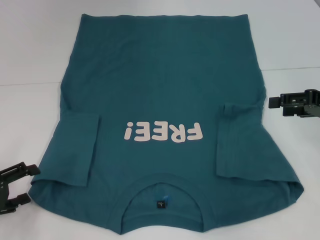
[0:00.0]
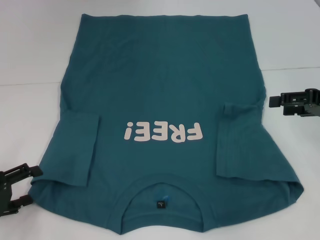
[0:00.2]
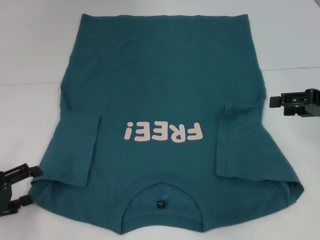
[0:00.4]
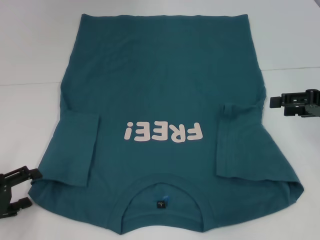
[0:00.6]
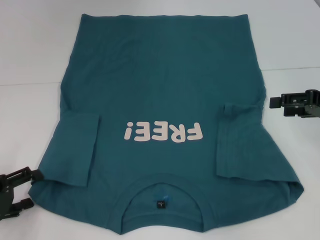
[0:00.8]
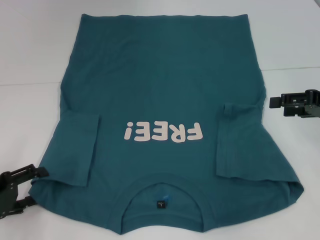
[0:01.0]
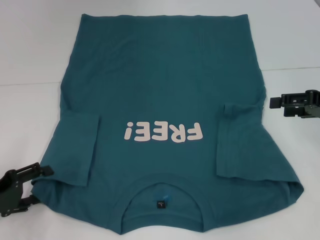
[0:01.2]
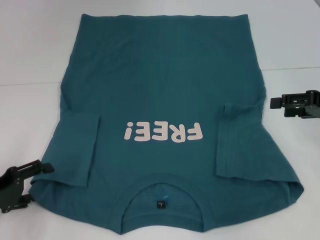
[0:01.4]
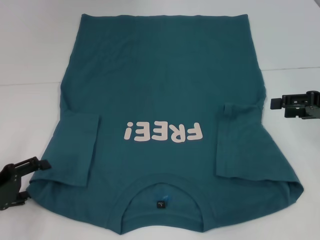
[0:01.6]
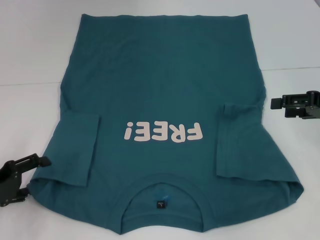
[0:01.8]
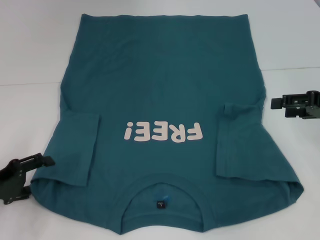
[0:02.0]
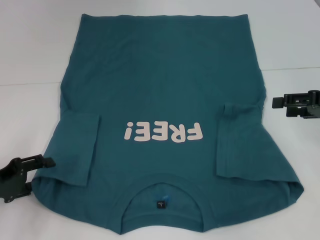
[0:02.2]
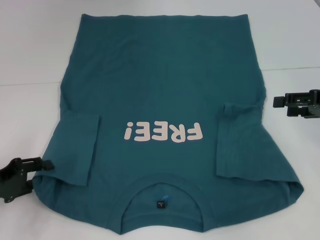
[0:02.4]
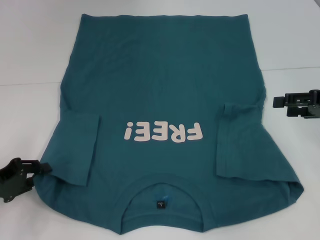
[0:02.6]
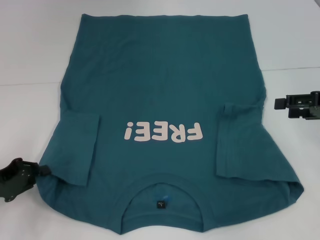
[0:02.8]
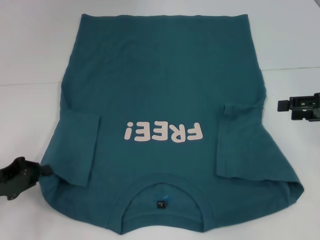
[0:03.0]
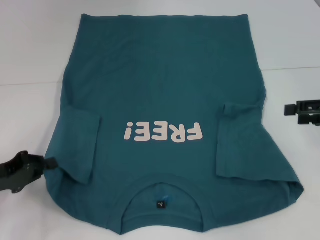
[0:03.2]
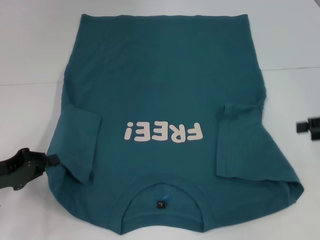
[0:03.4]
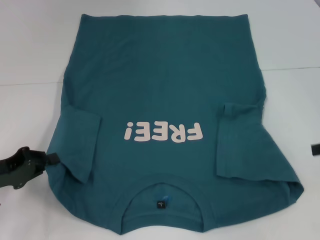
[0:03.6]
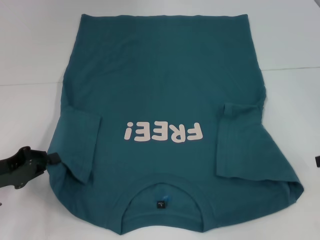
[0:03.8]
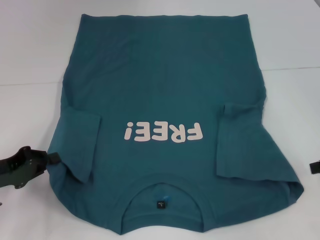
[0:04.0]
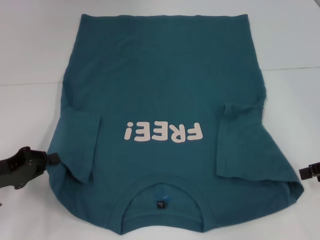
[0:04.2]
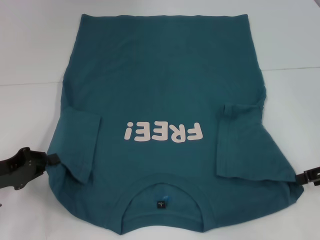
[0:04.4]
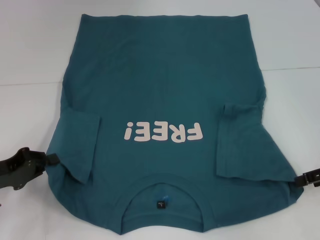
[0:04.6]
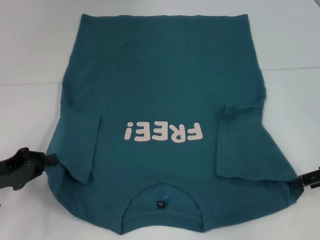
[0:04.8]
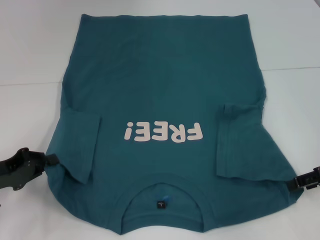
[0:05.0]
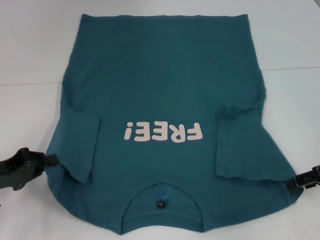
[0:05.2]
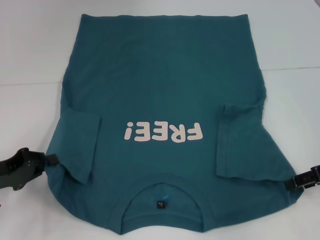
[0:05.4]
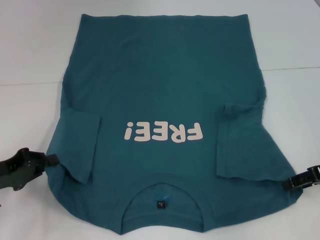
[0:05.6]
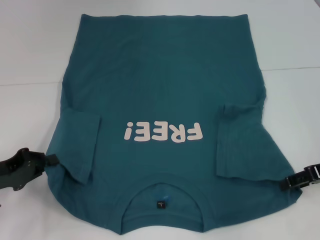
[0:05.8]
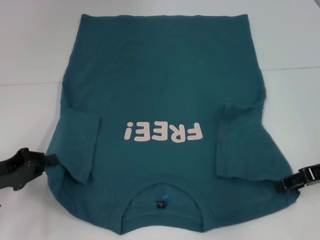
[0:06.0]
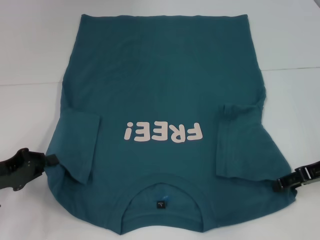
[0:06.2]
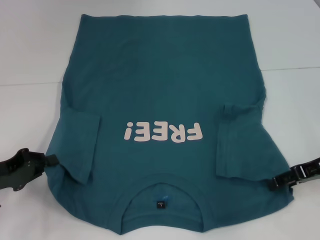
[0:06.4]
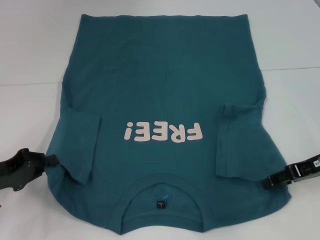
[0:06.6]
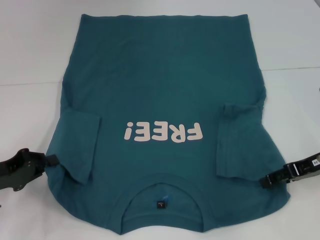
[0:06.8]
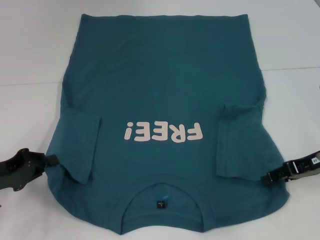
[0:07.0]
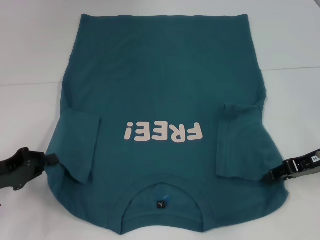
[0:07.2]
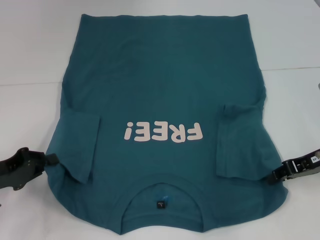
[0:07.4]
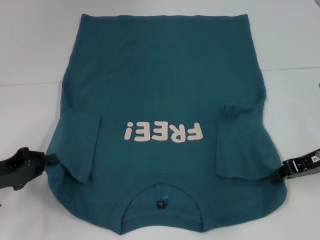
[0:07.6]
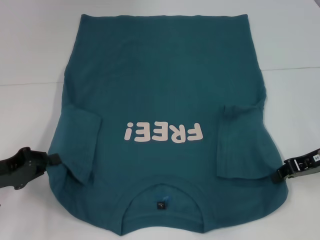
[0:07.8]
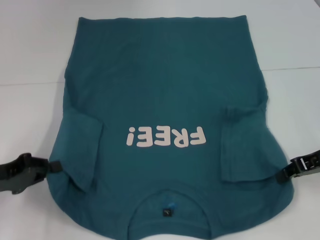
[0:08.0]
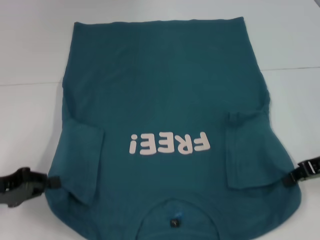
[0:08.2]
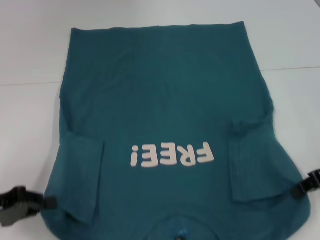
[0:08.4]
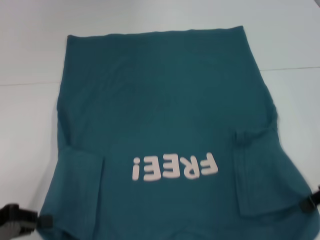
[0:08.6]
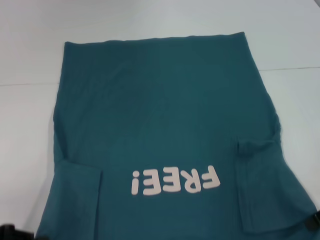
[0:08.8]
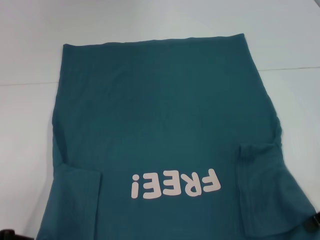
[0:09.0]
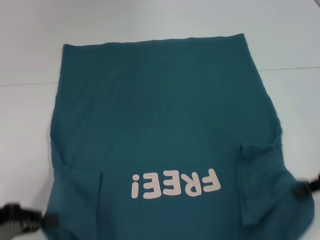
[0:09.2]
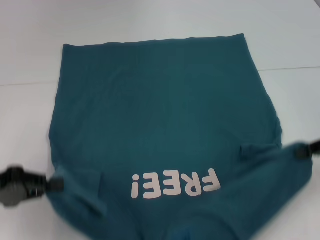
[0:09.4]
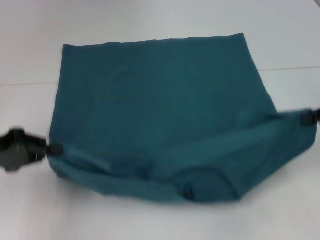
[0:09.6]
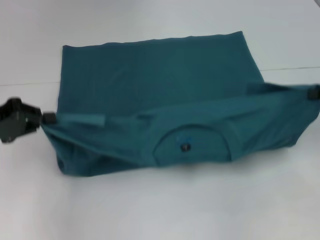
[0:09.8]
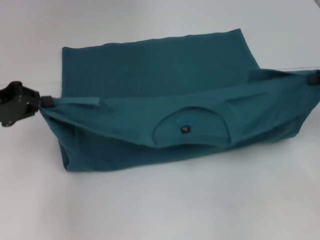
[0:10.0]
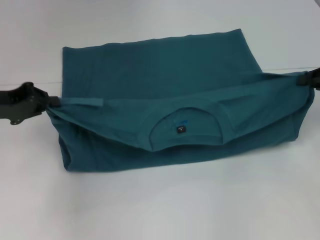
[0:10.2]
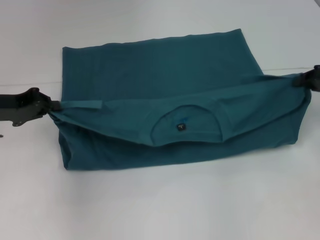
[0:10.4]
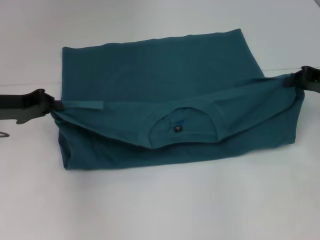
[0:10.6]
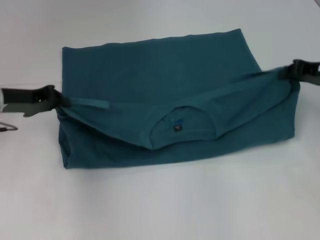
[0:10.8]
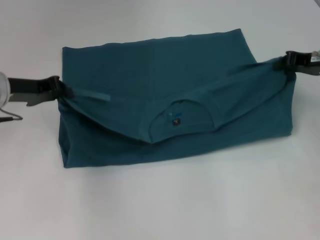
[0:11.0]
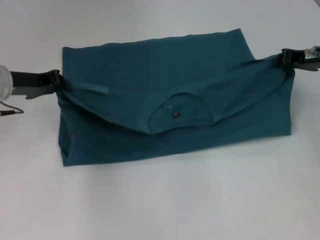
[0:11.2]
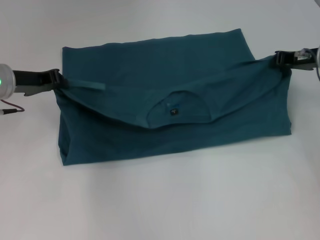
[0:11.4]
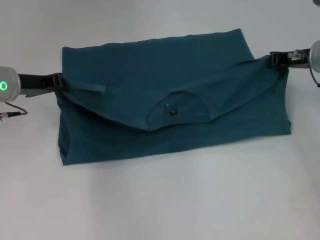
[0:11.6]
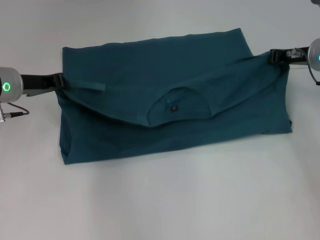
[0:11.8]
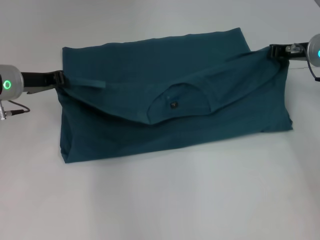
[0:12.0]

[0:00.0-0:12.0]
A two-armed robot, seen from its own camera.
Step, 0:00.0 to 0:02.8: Grab the bottom left corner with your left hand.
Step, 0:03.0 to 0:07.8: Grab the bottom right corner with your right hand.
0:00.0 to 0:01.6: The grippers make only small movements.
0:01.6 to 0:03.0: The left gripper closes.
0:04.4 to 0:06.0: There are only small adjustments of the grippers.
0:06.0 to 0:07.6: The right gripper closes its fingers.
0:07.6 to 0:09.0: The two grippers go about 5 cm backward.
0:09.0 to 0:10.4: The left gripper moves forward, about 15 cm. Meanwhile the right gripper moves forward, some 10 cm.
0:10.4 to 0:12.0: The left gripper is displaced to the right and forward by approximately 5 cm. The right gripper shifts about 10 cm forward and to the left.

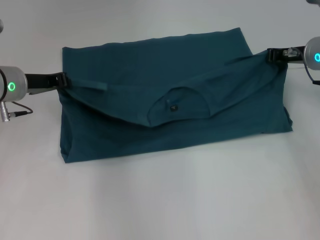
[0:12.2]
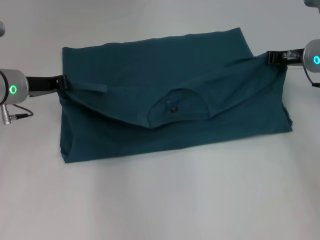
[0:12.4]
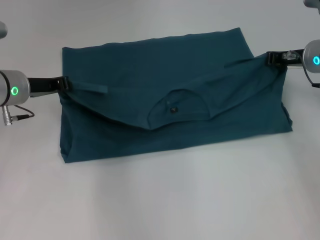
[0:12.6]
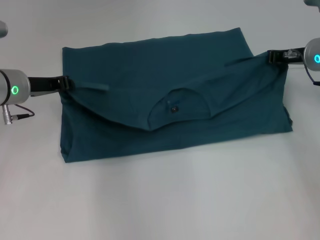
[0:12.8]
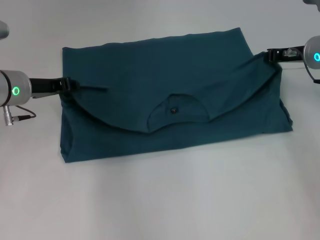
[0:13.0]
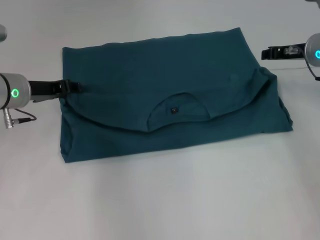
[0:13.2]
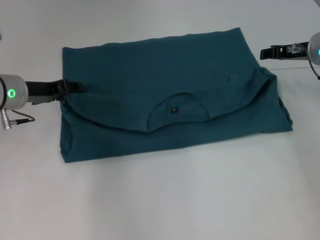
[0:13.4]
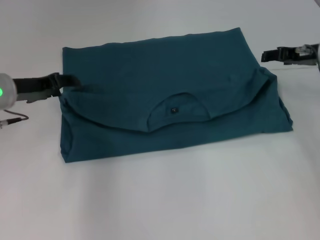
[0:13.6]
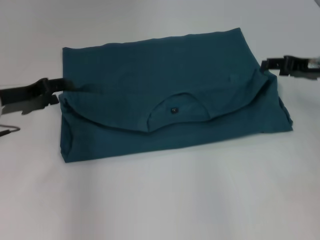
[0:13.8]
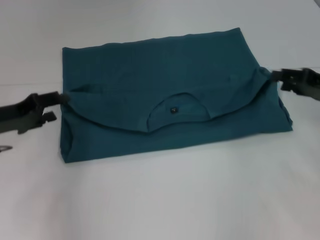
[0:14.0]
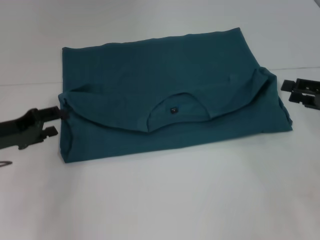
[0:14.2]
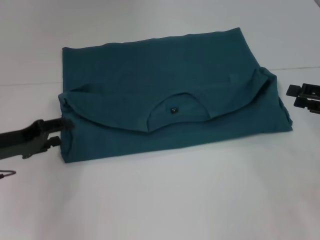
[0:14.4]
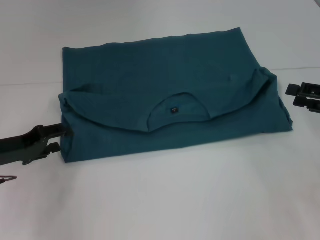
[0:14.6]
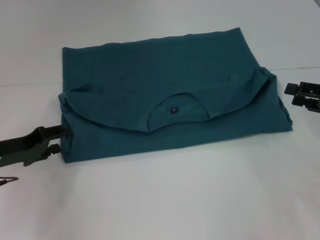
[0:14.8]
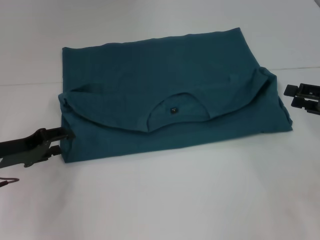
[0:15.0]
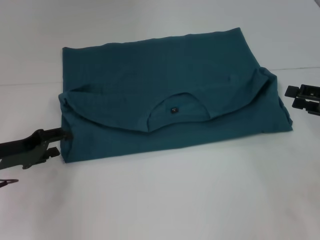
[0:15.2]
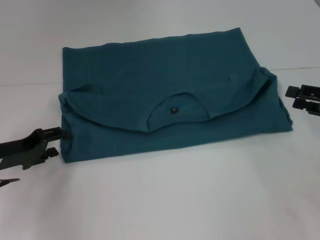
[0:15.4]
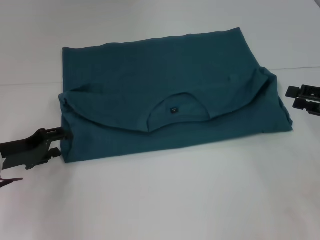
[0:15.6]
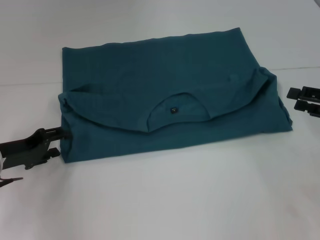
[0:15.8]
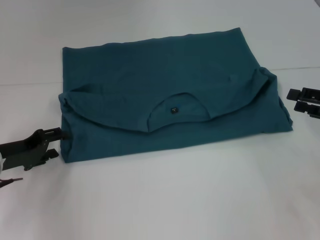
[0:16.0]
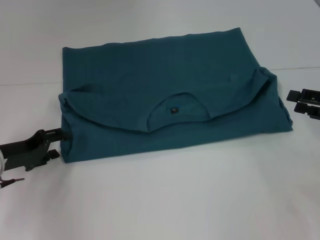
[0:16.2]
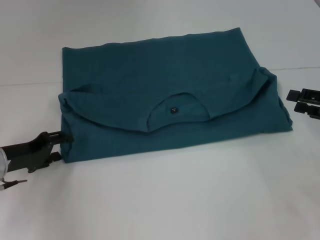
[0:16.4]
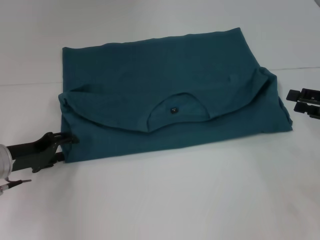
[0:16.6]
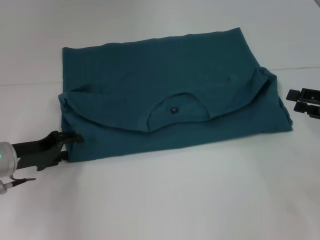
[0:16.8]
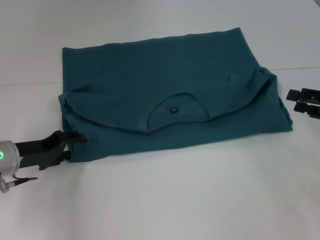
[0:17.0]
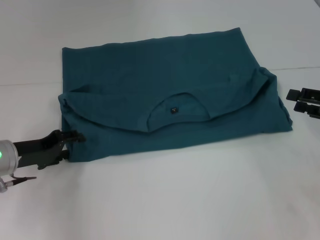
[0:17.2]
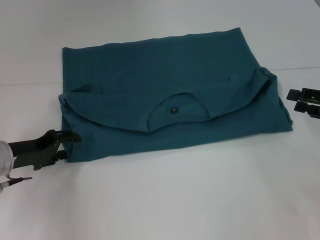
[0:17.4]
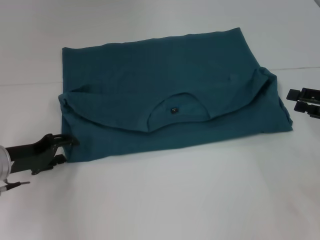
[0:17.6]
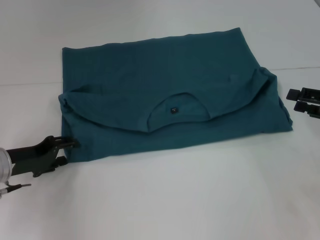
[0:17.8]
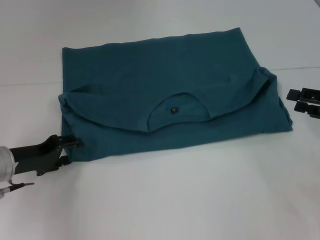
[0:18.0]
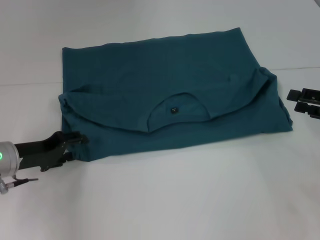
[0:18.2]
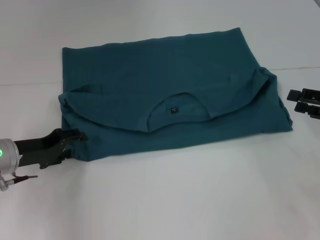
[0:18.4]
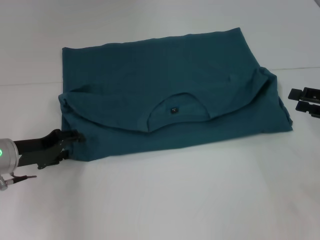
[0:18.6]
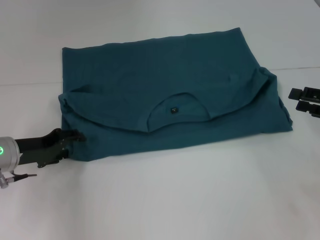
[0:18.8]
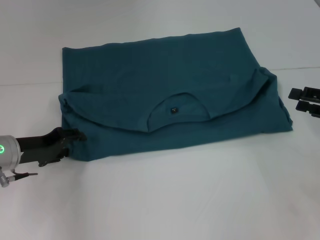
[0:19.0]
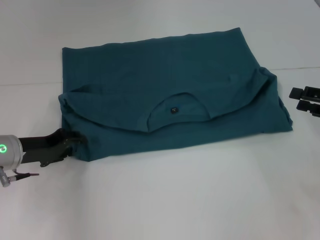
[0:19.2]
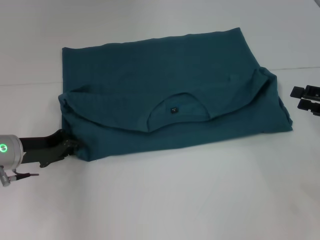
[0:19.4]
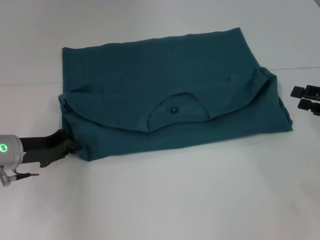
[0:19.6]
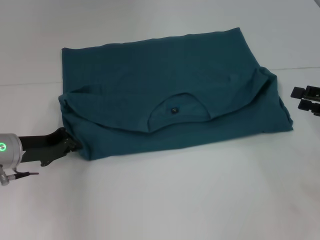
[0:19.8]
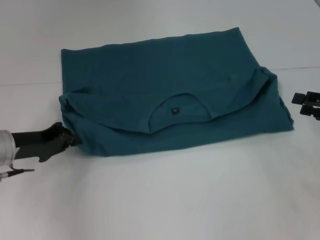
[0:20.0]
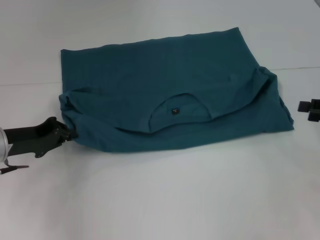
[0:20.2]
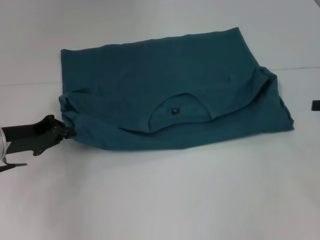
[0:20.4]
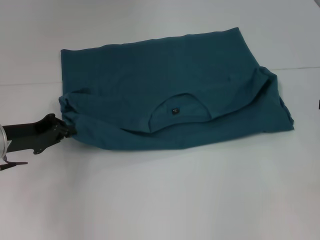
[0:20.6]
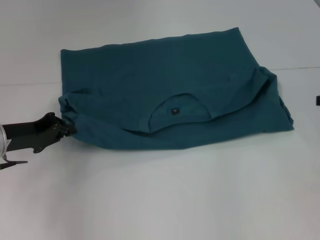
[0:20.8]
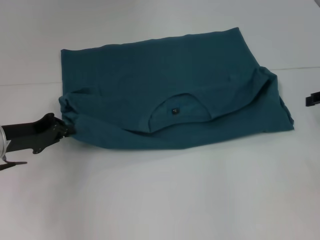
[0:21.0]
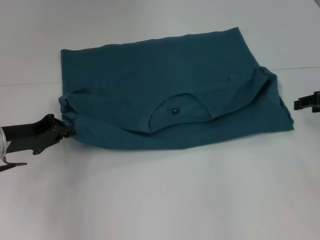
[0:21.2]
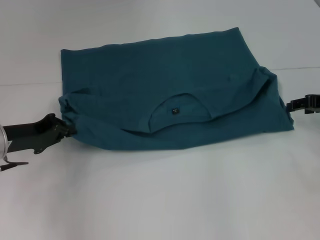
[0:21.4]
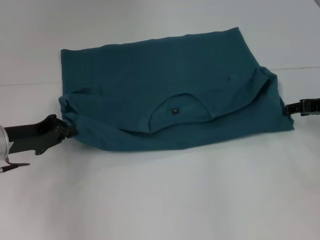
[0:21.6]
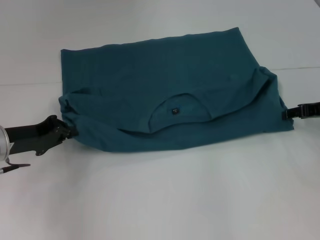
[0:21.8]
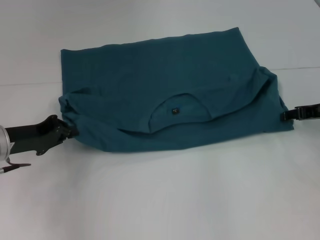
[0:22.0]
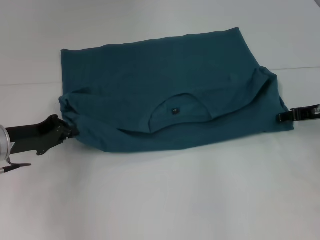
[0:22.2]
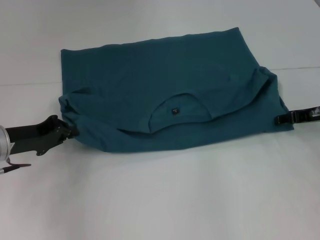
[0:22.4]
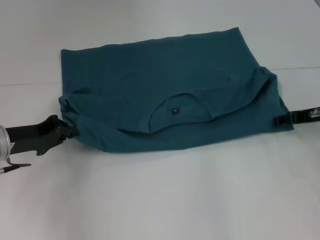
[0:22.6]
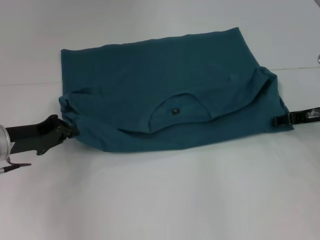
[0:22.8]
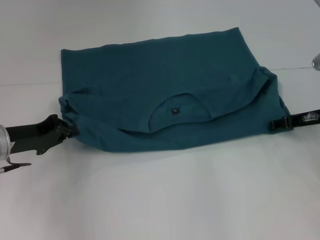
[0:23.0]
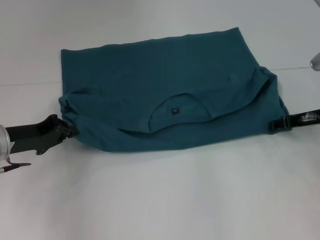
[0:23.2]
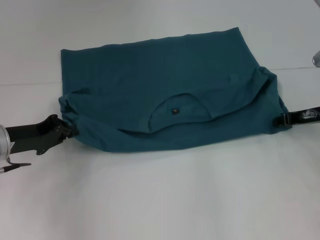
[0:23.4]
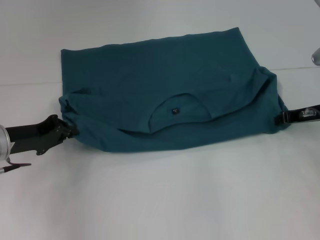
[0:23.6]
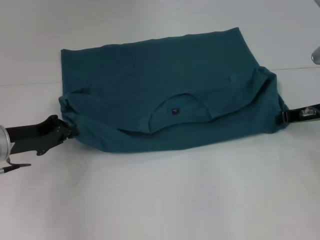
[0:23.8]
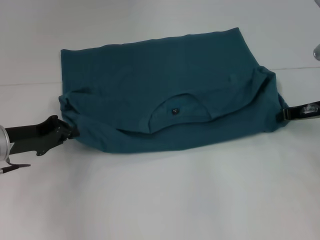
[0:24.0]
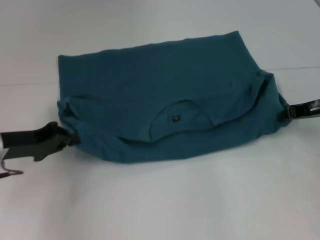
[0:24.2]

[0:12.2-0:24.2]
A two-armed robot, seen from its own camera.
0:12.2 to 0:13.8: The right gripper changes place by roughly 5 cm, and opens its fingers. Meanwhile the left gripper heads backward, covering about 5 cm, and opens up.
0:13.8 to 0:15.2: The left gripper moves downward, about 5 cm, while the right gripper travels backward and to the right by roughly 10 cm.
0:15.2 to 0:16.6: There are only small adjustments of the grippers.
0:16.6 to 0:18.2: Both grippers stay put.
0:18.2 to 0:19.8: The left gripper closes up.
0:19.8 to 0:21.2: The right gripper is displaced forward by roughly 5 cm.
0:21.2 to 0:22.6: The right gripper shifts by about 5 cm.
0:22.6 to 0:24.2: The right gripper closes.
